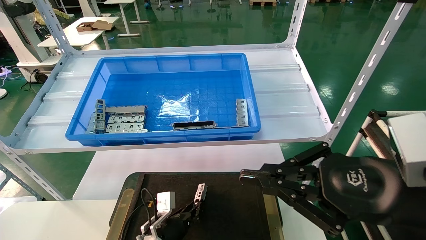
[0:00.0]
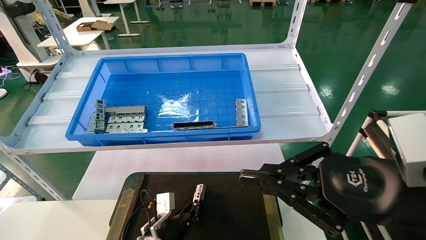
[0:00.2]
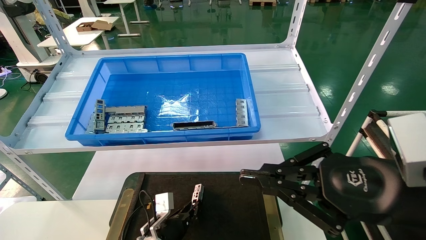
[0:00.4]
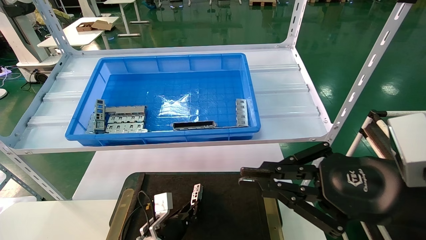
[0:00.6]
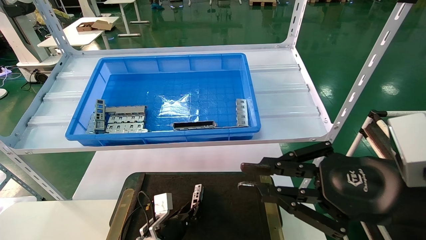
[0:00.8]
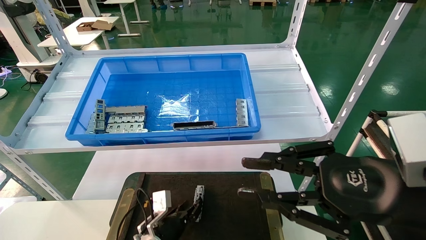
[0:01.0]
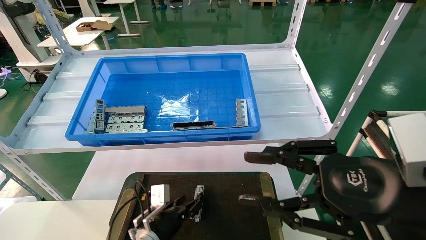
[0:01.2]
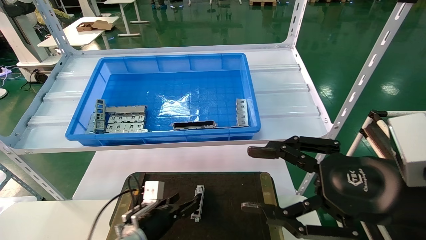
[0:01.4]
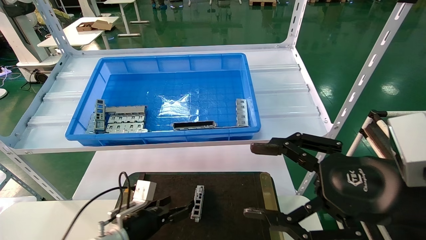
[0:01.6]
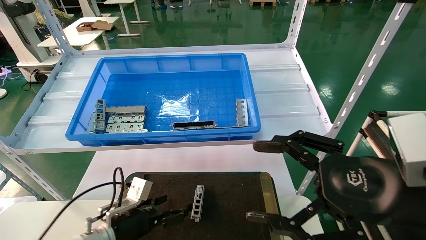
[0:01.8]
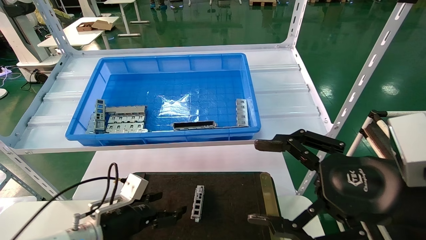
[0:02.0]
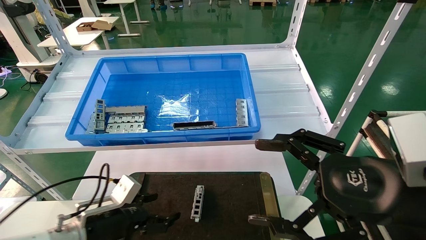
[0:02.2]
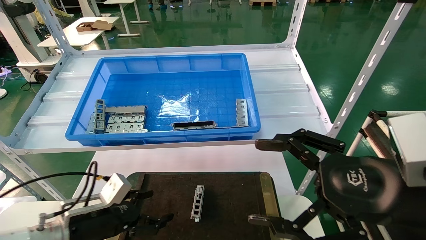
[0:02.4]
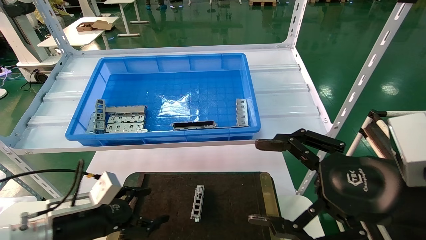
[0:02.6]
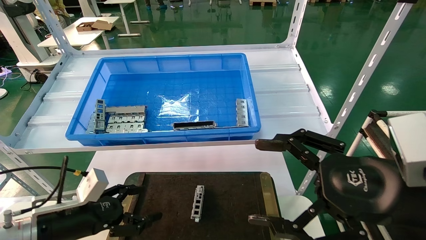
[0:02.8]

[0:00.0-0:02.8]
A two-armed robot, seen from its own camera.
Task of the whole recording: Grasp the part with one hand and place it on the black container.
0:00.0 to 0:01.4: The left gripper shifts by about 5 cm, and opens up, while the right gripper opens up.
0:01.4 to 0:02.8: The right gripper opens. Meanwhile the left gripper moves to the left, upward and backward, some 20 cm, and opens its fingers.

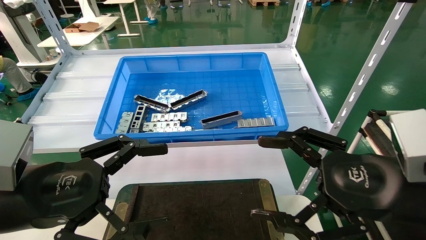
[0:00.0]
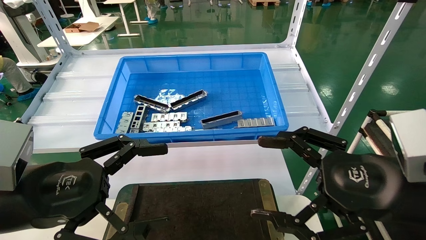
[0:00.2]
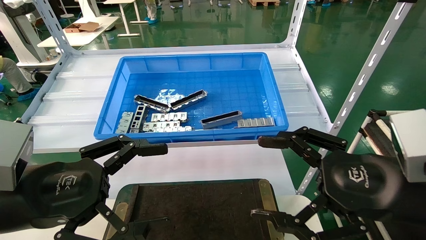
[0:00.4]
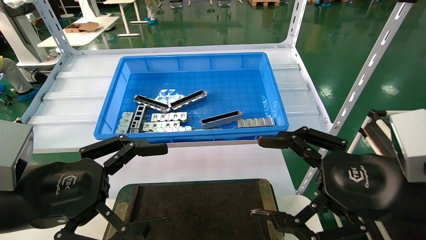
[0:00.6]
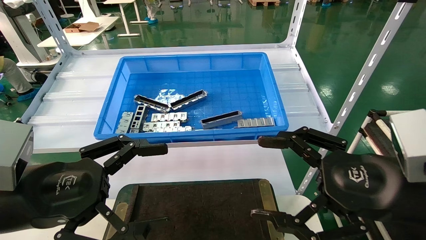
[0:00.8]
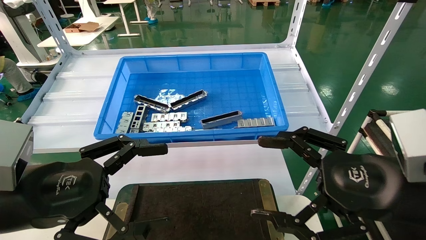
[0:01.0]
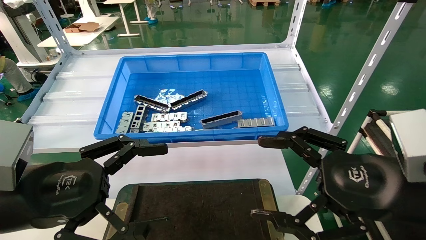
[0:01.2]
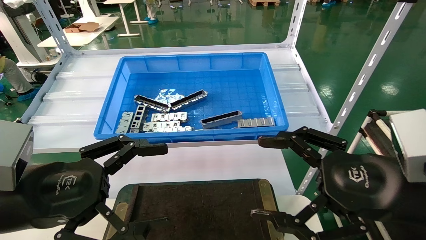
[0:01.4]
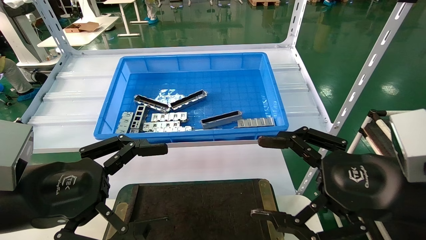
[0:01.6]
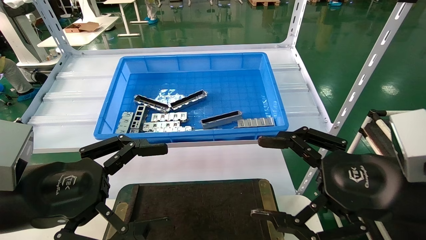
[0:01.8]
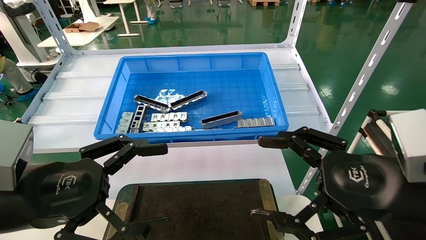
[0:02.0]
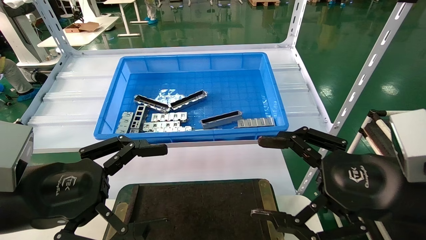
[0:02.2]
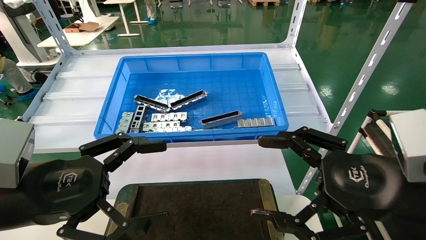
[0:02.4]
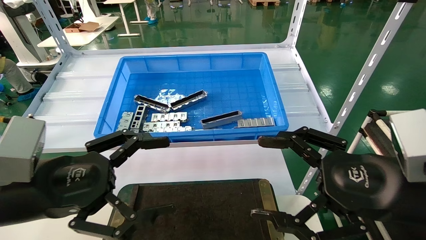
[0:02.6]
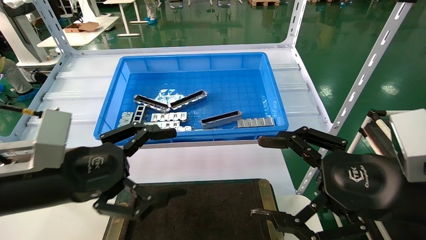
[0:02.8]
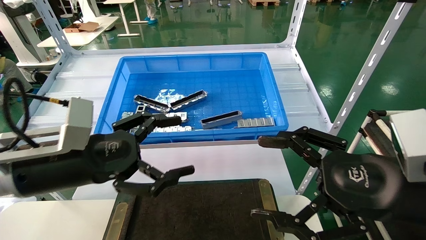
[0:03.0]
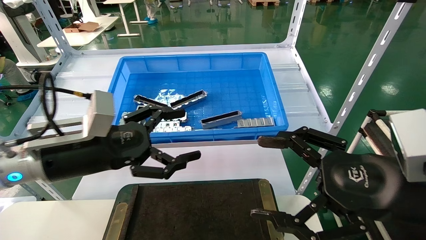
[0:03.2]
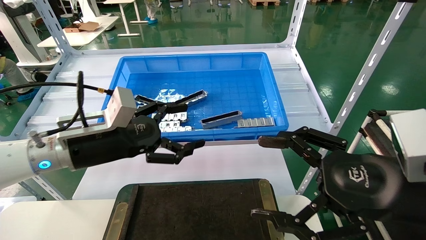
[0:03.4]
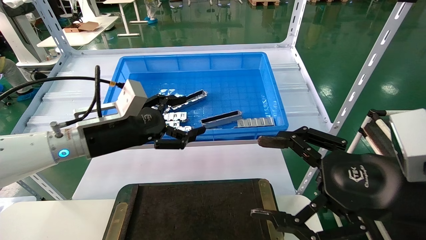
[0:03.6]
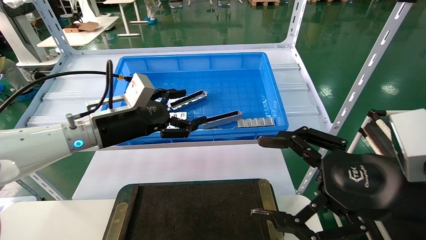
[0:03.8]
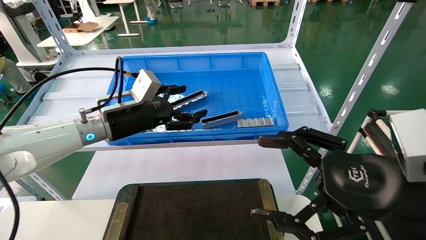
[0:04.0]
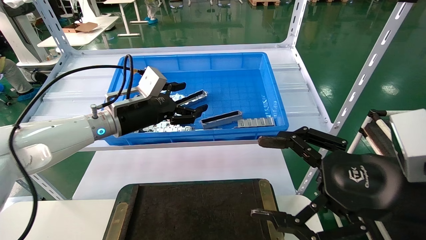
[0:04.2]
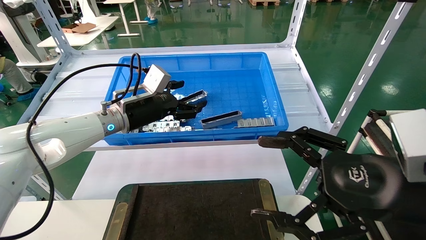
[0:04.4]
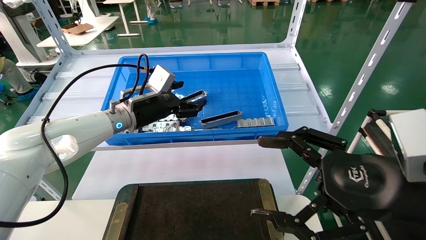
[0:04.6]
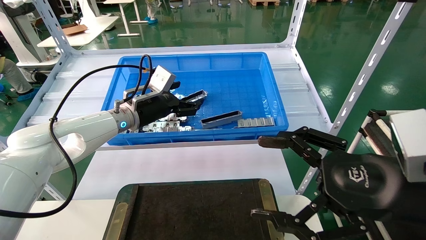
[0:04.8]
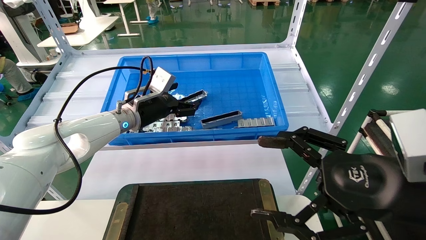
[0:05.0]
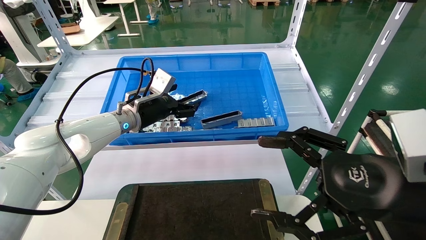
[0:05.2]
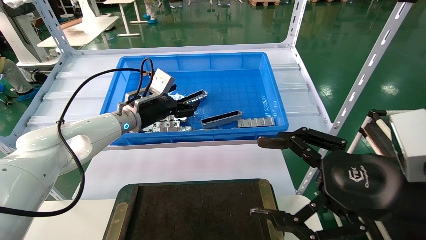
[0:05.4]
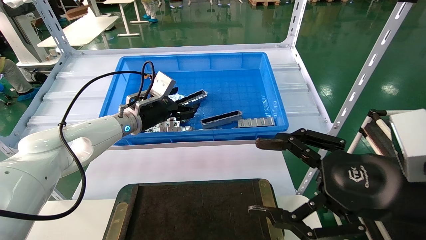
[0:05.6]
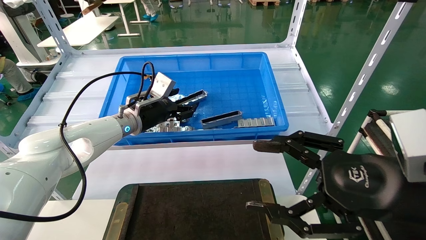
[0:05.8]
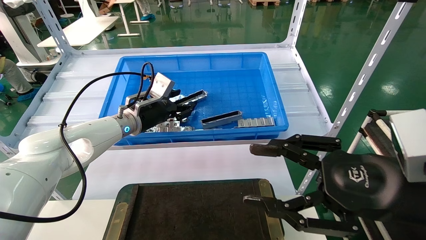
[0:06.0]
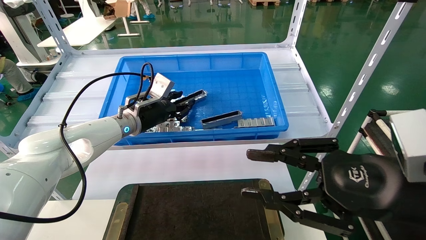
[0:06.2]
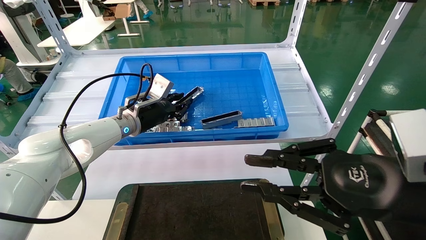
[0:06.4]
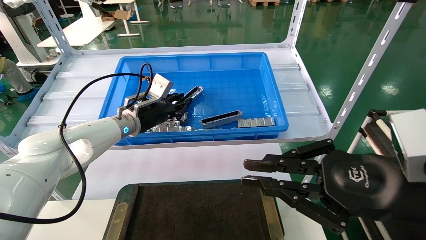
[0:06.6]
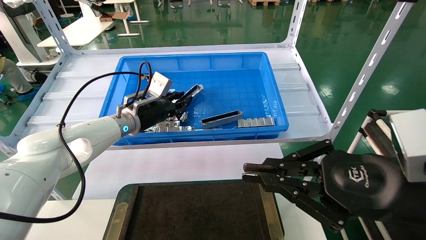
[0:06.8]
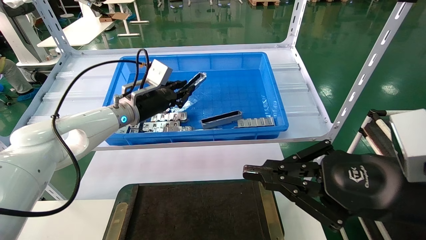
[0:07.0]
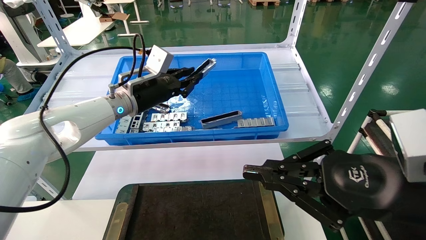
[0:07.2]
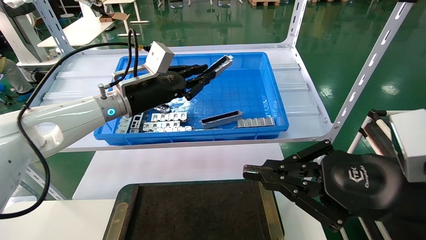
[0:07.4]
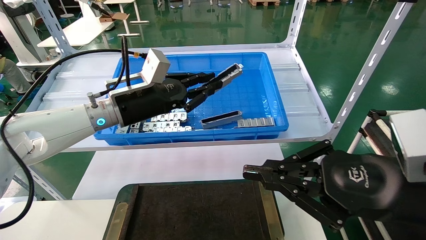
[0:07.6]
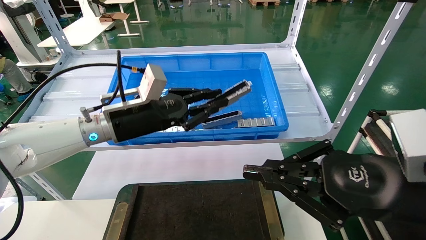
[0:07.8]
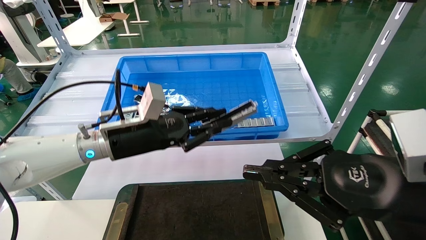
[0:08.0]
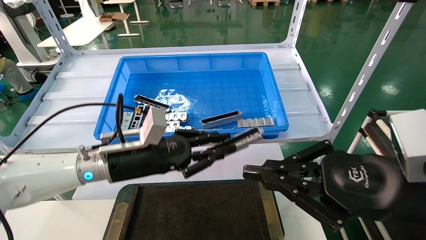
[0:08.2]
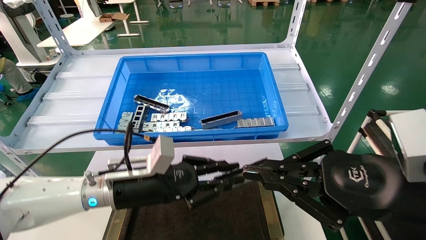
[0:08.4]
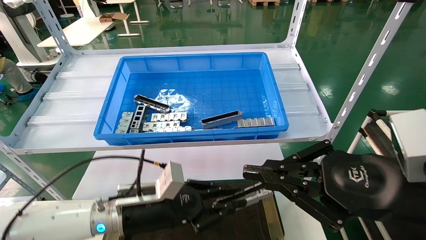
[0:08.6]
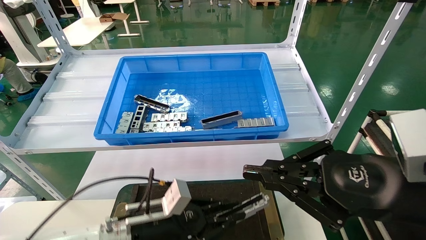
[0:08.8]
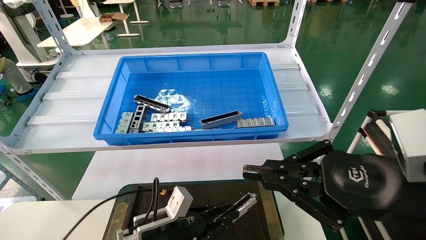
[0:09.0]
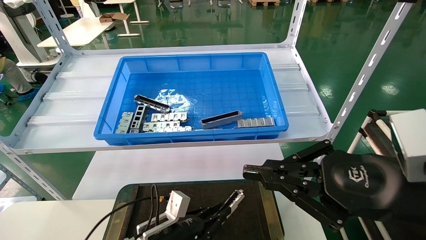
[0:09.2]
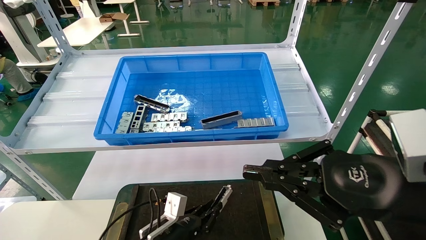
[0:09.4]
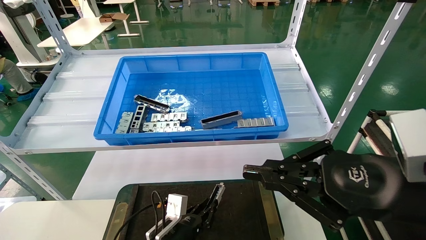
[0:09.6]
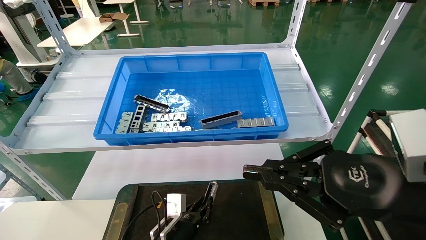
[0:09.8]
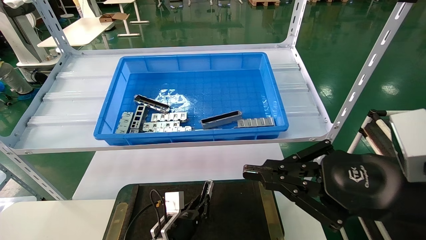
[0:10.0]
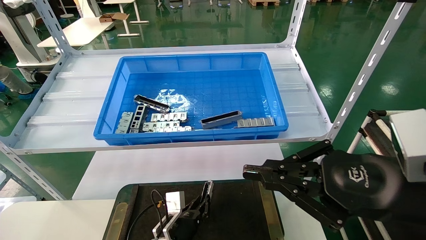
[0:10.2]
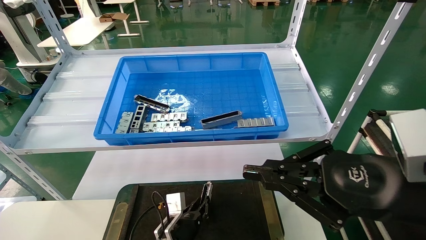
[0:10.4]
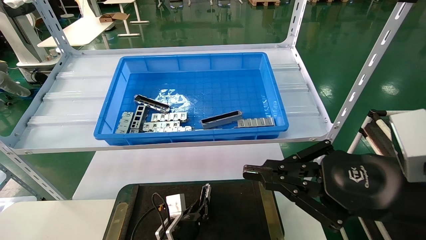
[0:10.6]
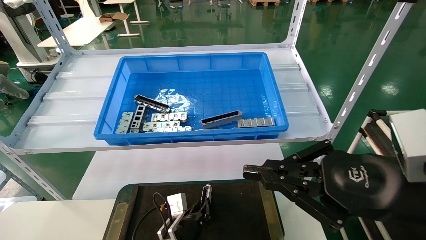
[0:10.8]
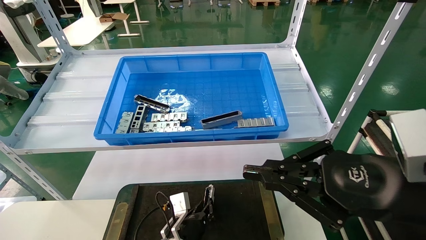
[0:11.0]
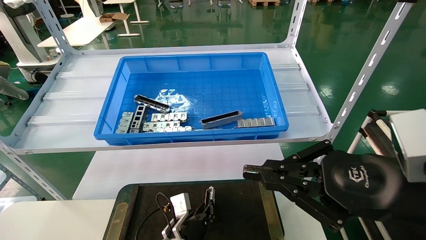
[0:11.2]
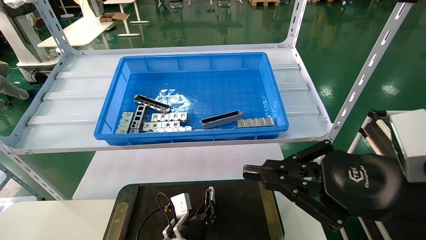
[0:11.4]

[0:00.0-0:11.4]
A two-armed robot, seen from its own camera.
Task of the whole recording: Grasp the part with one hand and place it on the black container.
Step, 0:02.6 to 0:06.4: Pick up the front USB bracket from the feeding area.
0:00.0 to 0:01.4: The two grippers keep their place.
0:01.4 to 0:02.8: The grippers stay close to where they were, moving slightly.
0:02.8 to 0:04.2: The left gripper is displaced forward by approximately 20 cm.
0:04.2 to 0:05.6: The left gripper heads forward, covering about 5 cm.
0:05.6 to 0:07.2: The left gripper moves roughly 5 cm, and closes its fingers, while the right gripper closes up.
0:07.2 to 0:08.6: The left gripper is displaced downward and backward by roughly 25 cm.
0:08.6 to 0:10.0: The left gripper goes approximately 15 cm downward.
0:10.0 to 0:11.4: The grippers move only a little.

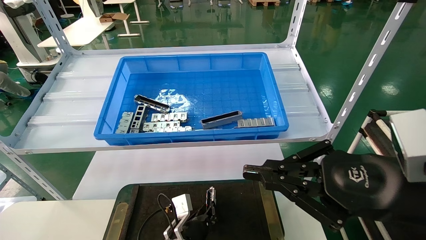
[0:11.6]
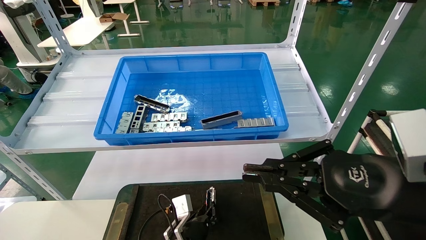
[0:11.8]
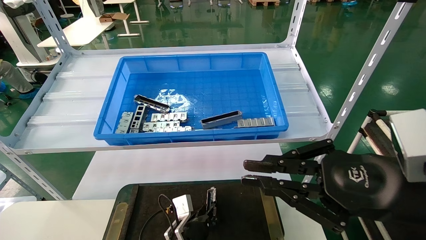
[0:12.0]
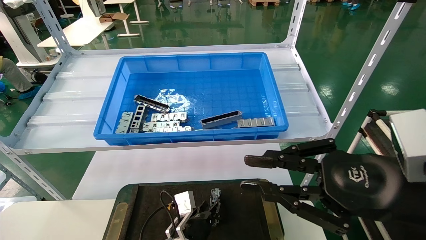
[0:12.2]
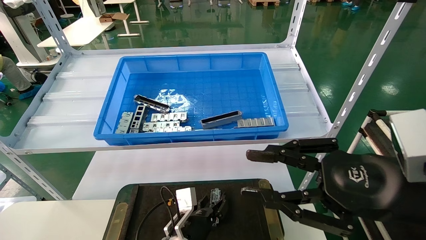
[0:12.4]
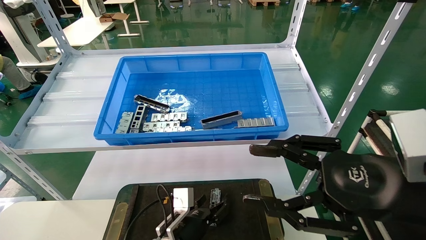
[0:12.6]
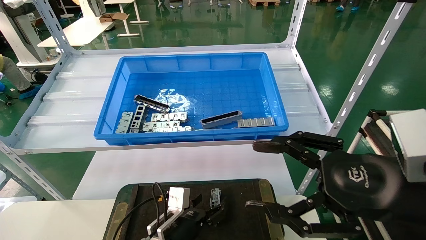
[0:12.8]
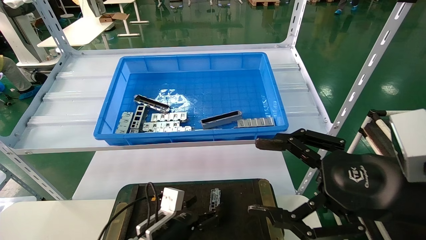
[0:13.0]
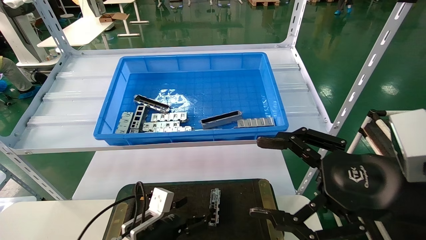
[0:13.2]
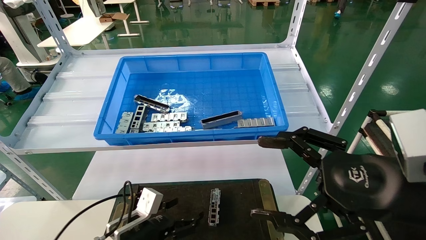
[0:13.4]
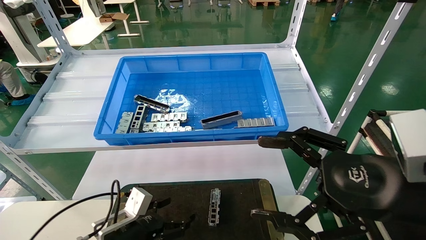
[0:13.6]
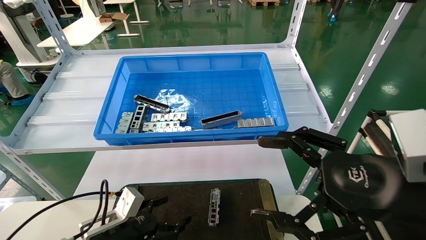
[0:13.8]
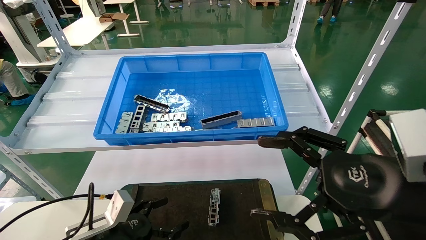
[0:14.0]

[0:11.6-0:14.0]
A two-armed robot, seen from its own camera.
Task of the whole recording: Grasp the part with one hand and place it on the black container.
0:11.6 to 0:12.8: The left gripper shifts by some 5 cm, and opens up, while the right gripper opens up.
0:12.8 to 0:14.0: The left gripper travels to the left by roughly 15 cm. The right gripper opens.
